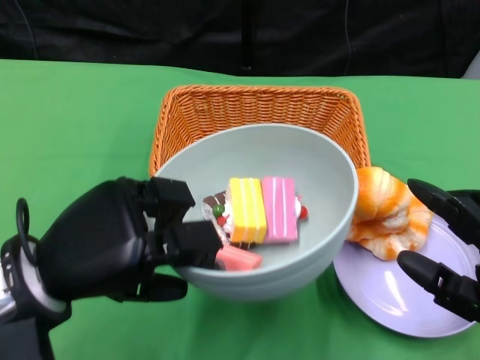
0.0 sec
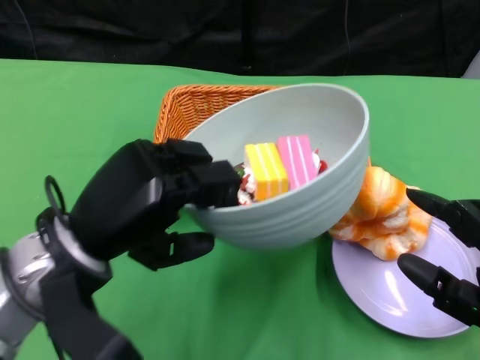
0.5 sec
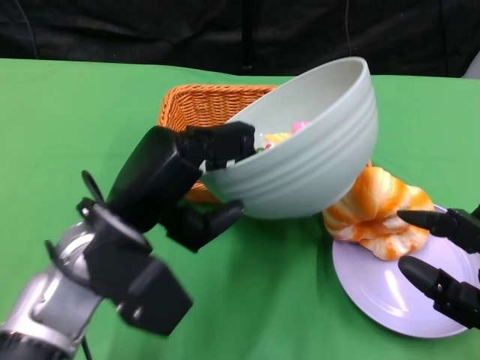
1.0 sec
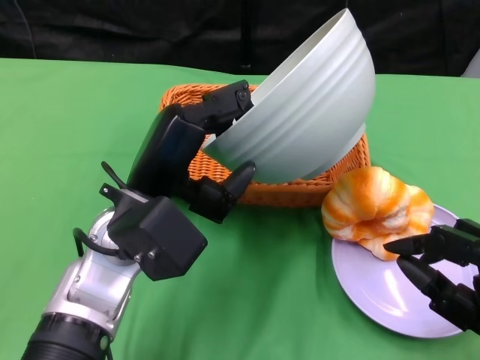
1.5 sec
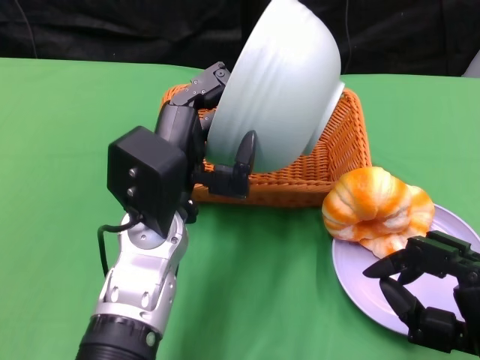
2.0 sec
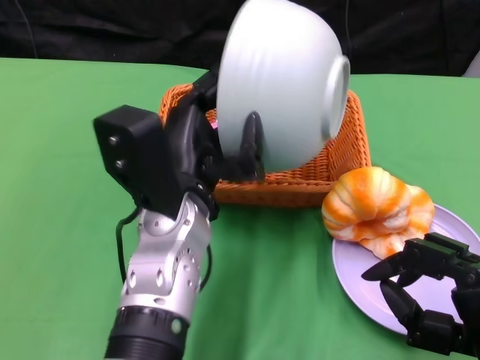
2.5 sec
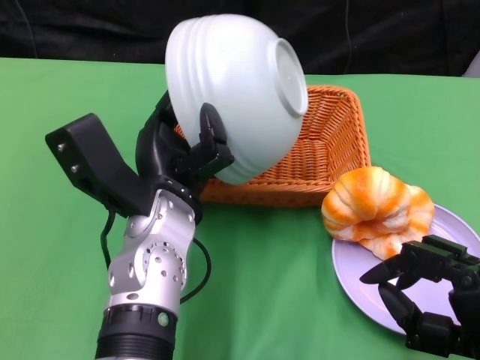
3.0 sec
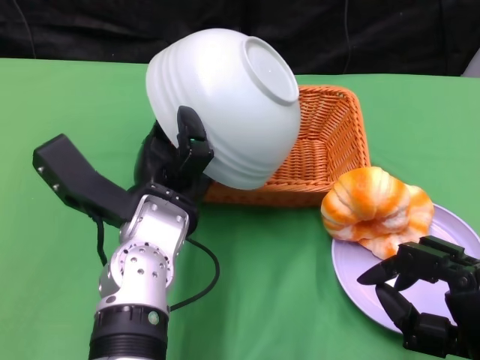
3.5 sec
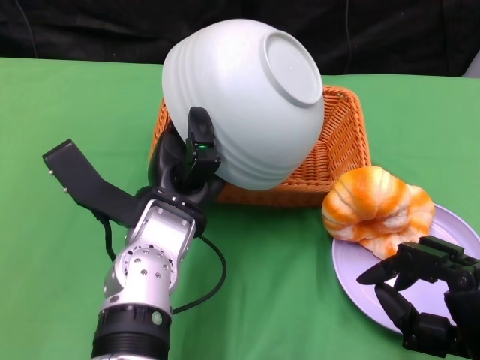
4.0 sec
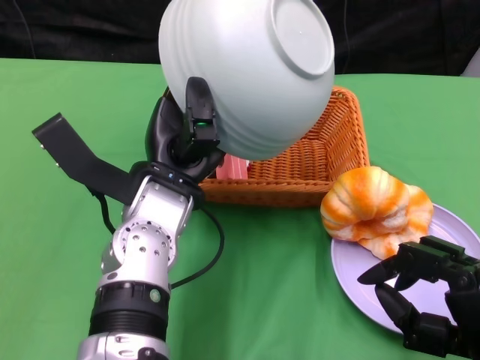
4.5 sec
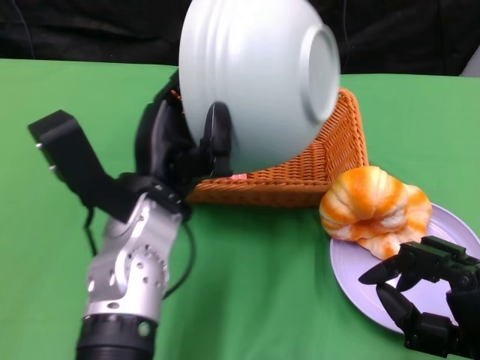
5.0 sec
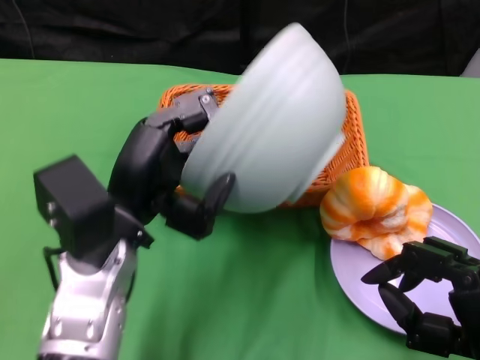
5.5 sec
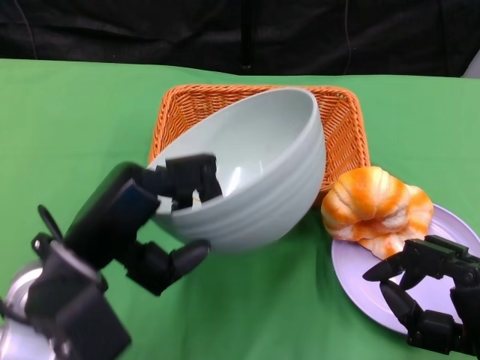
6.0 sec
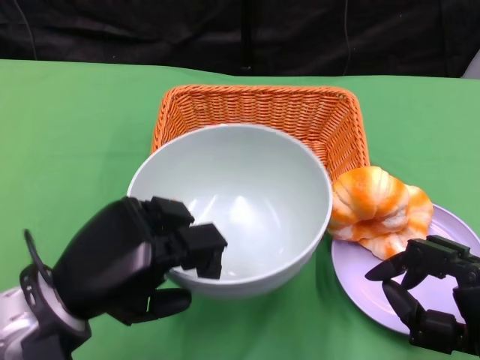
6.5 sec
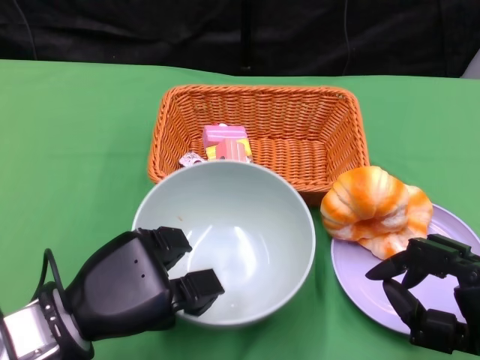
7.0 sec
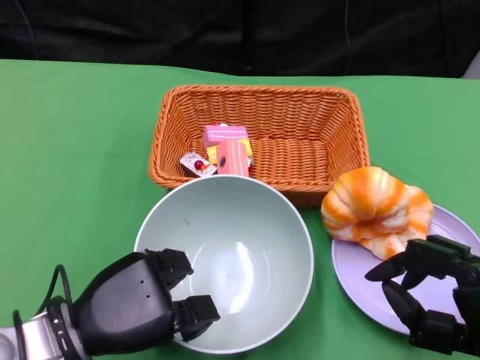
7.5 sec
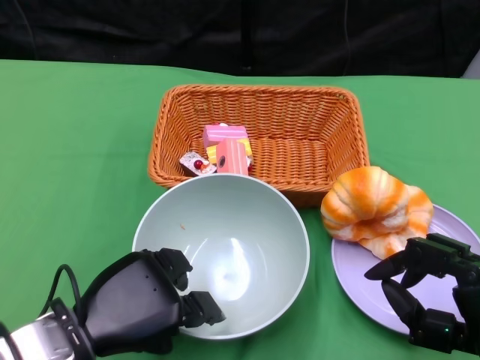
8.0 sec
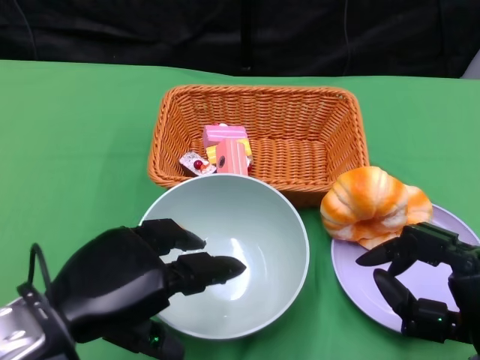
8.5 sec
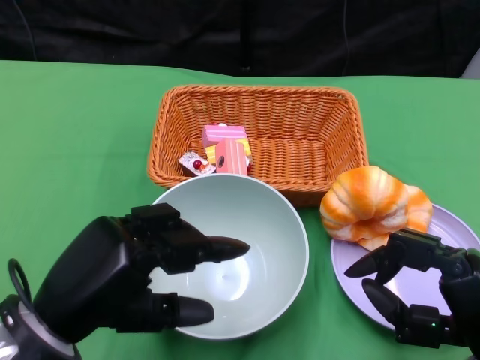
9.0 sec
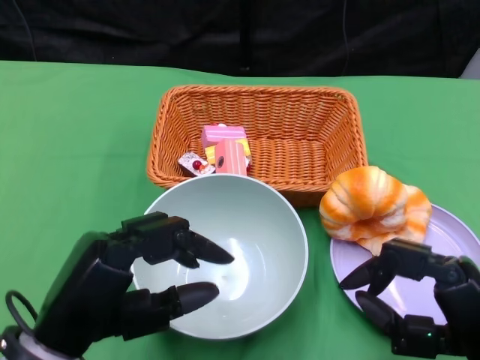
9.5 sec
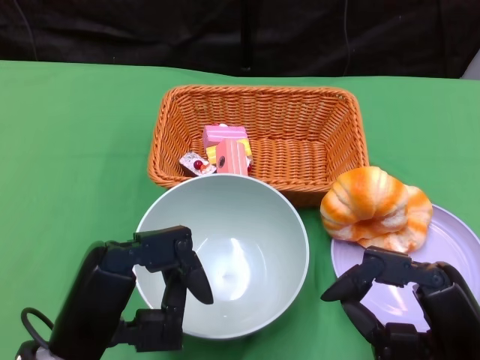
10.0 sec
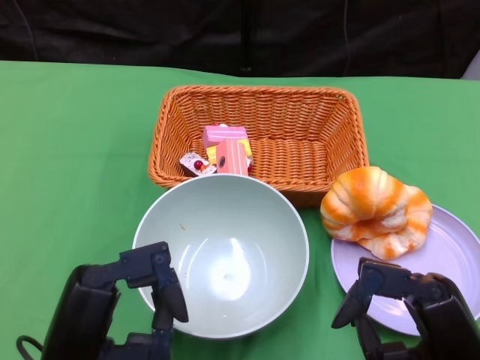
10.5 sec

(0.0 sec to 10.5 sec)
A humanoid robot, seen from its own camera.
Step, 0.0 sec - 3.5 sec: Pour the cake into the basket with the left gripper.
Step, 4.0 sec - 8.0 sec: Place the bowl on the table with the left gripper.
0.0 sec - 2.0 sec: The left hand moves to the right and forward, some 15 cm.
4.0 sec - 6.5 sec: The left hand heads to the left and backward, covering approximately 15 cm.
8.5 sec - 10.5 sec: The left hand changes place by some 5 cm.

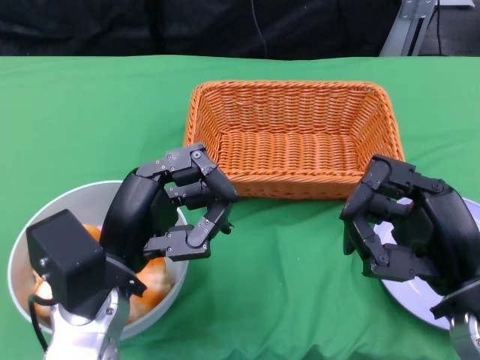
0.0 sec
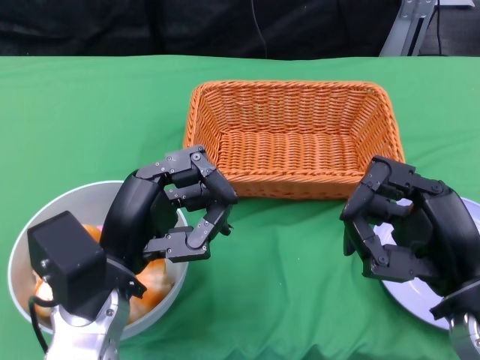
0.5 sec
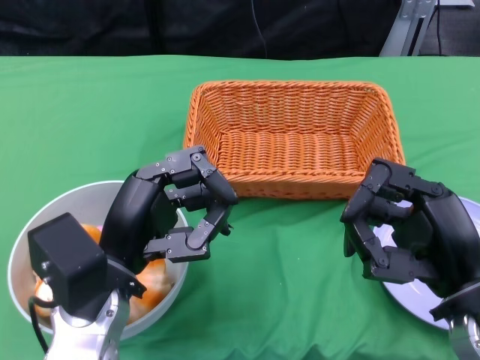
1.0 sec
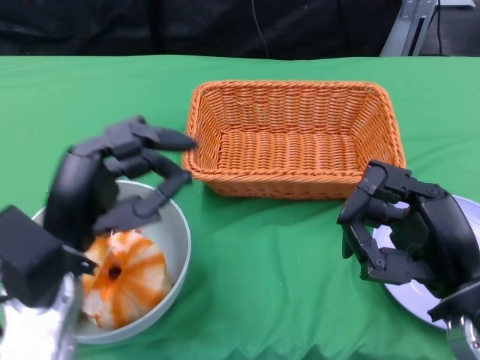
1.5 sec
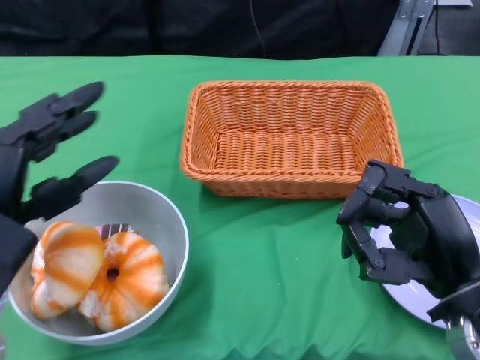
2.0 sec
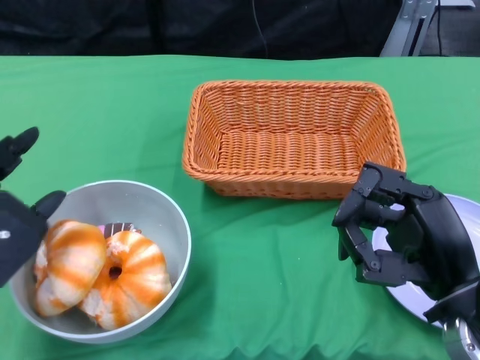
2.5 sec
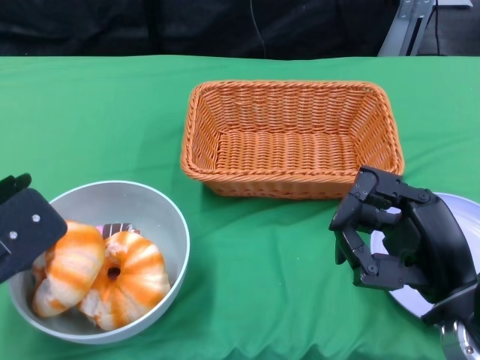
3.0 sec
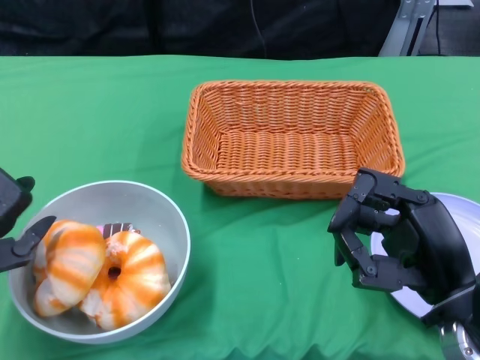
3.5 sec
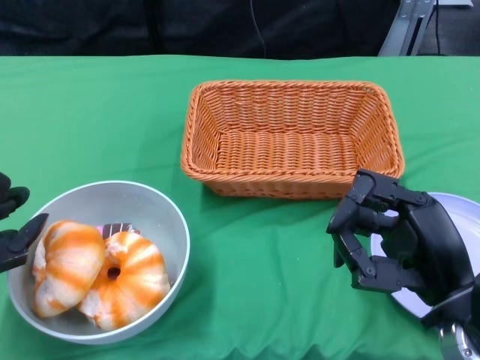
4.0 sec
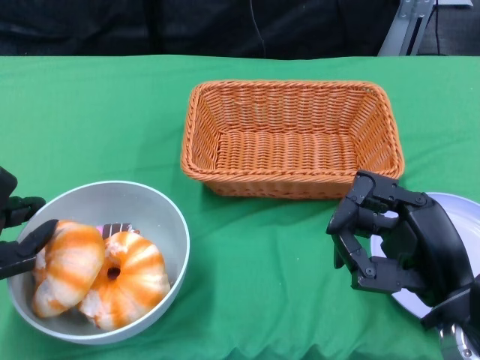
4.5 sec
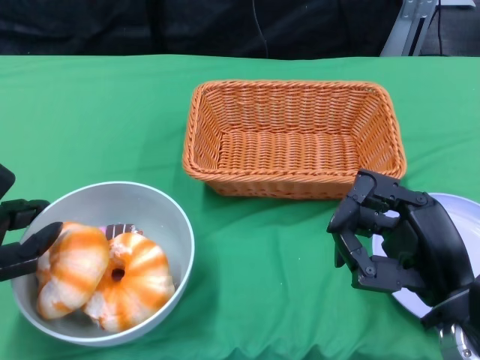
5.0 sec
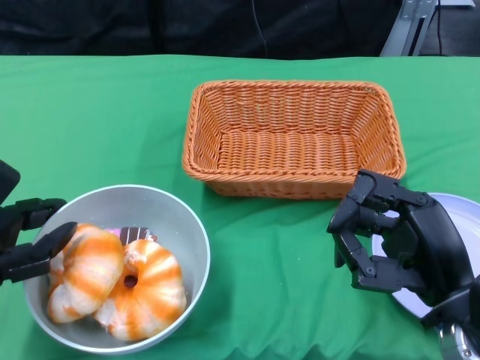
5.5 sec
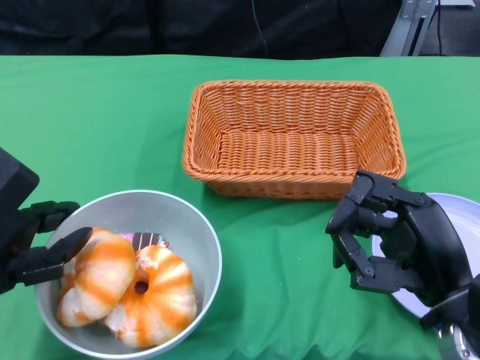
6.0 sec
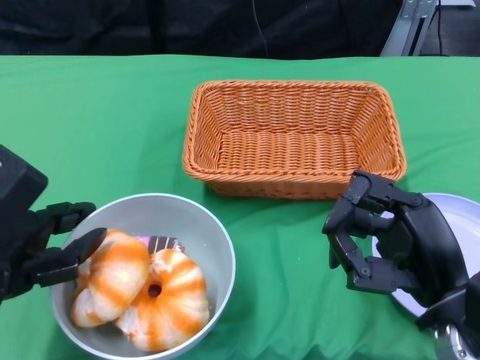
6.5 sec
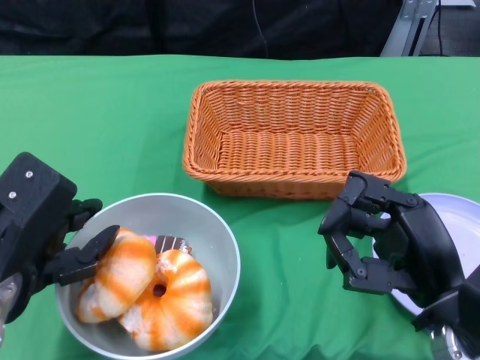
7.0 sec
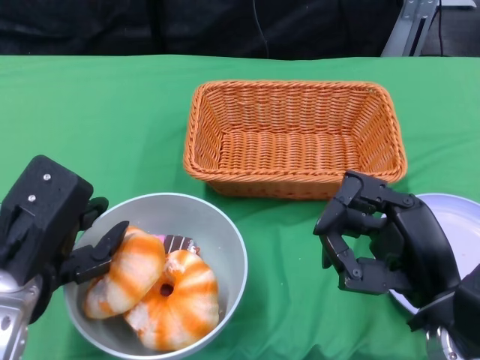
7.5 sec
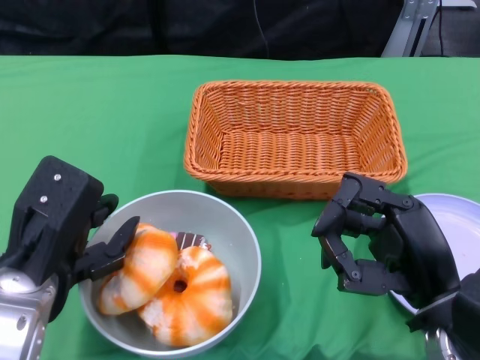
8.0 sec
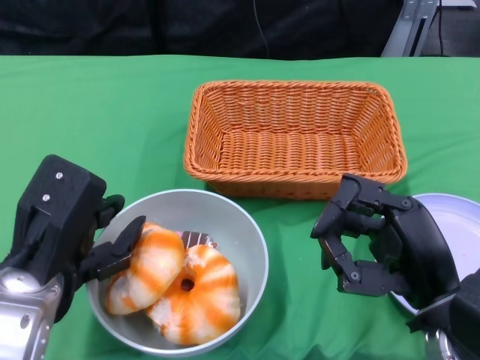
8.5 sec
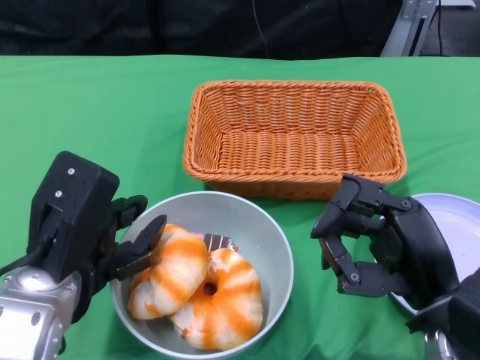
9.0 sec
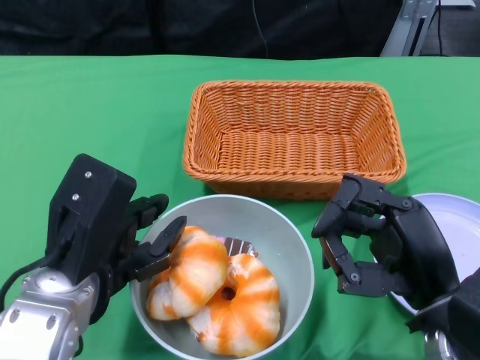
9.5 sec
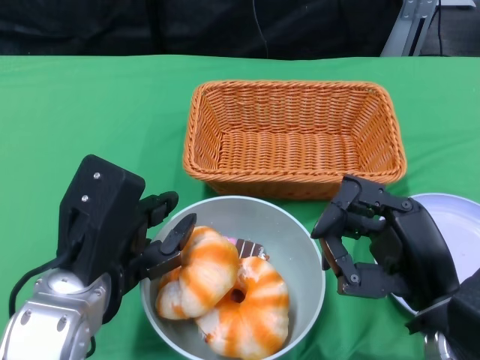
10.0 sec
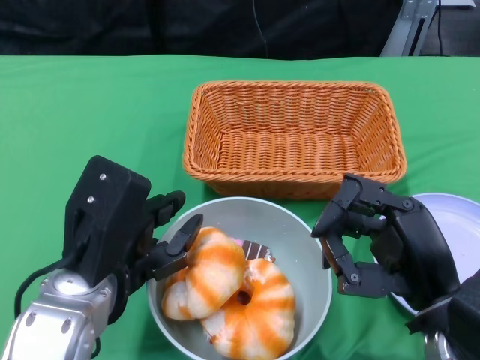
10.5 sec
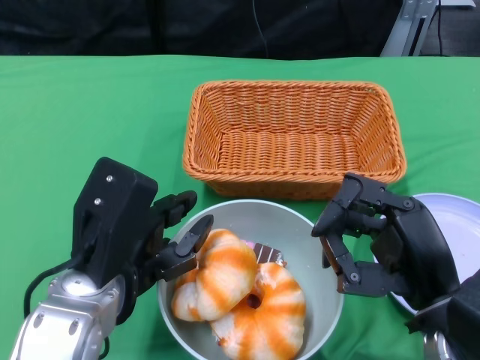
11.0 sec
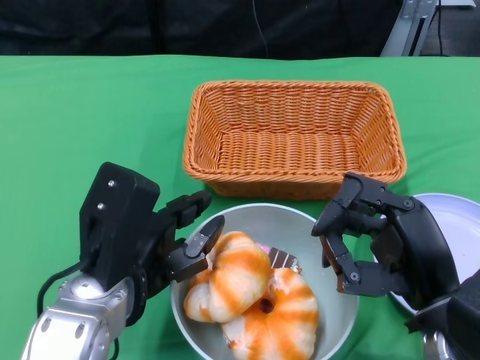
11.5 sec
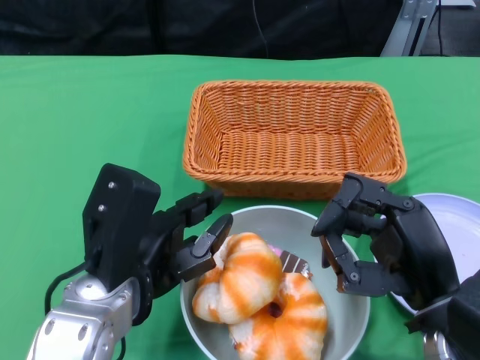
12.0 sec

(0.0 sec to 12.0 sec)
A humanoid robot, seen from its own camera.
2.0 sec - 4.0 sec: The left hand is displaced to the left by about 5 cm.
4.0 sec - 6.0 sec: The hands stay close to where they were, moving slightly.
6.0 sec - 8.0 sec: The left hand shifts roughly 5 cm to the right.

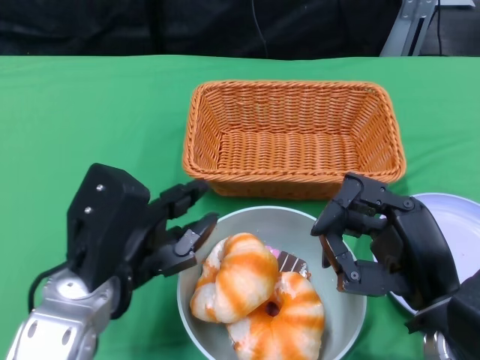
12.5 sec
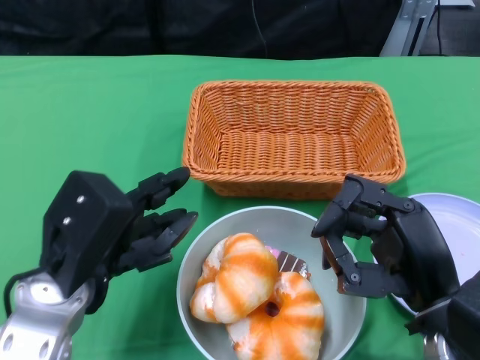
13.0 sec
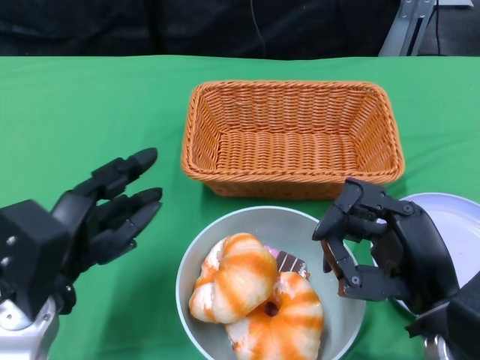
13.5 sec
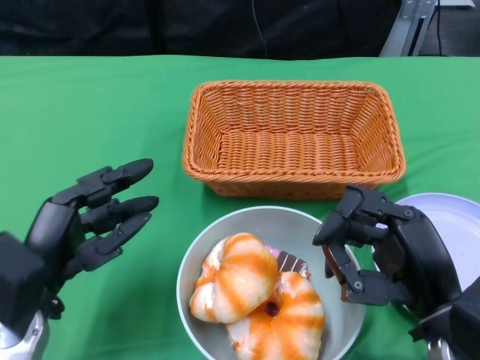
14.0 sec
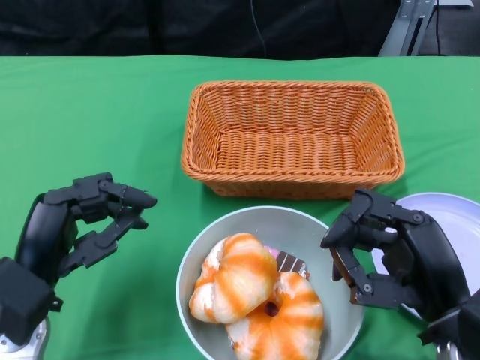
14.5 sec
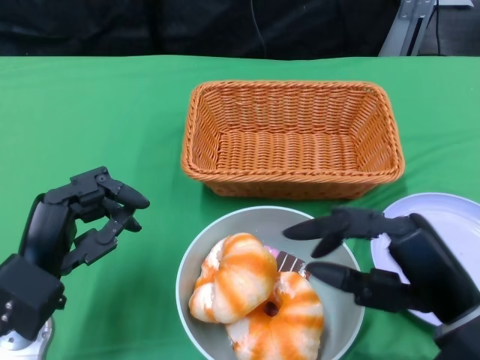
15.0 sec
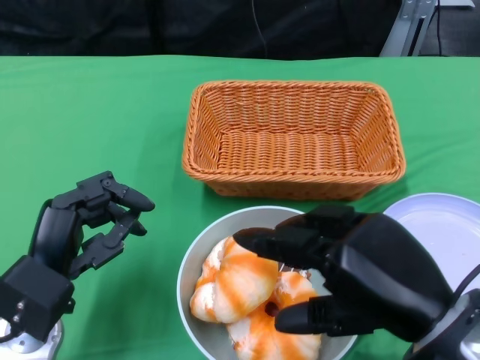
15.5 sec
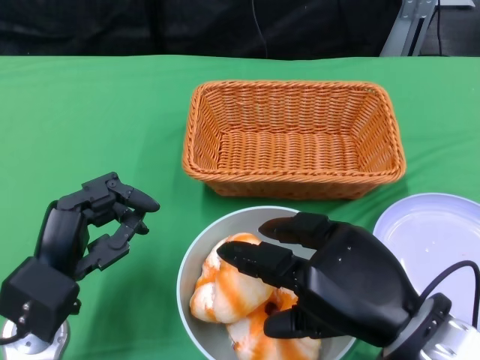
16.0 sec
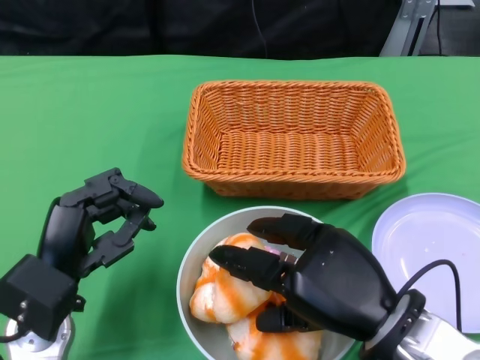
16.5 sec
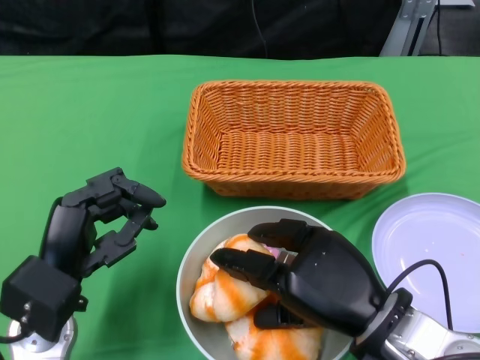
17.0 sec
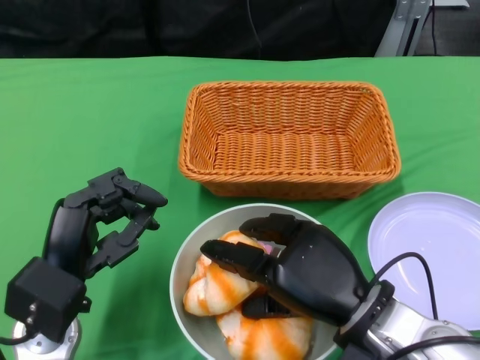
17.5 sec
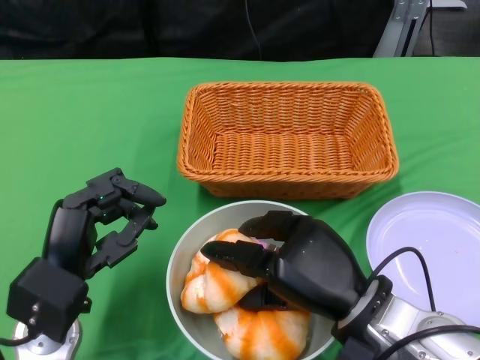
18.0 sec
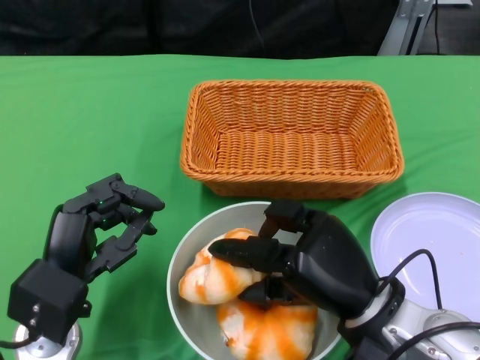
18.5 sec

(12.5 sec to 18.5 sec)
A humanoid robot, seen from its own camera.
12.5 sec - 14.5 sec: The left hand travels to the left by some 5 cm.
14.5 sec - 16.5 sec: The right hand moves to the left, about 5 cm.
16.5 sec - 18.5 sec: The right hand shifts by roughly 5 cm.
